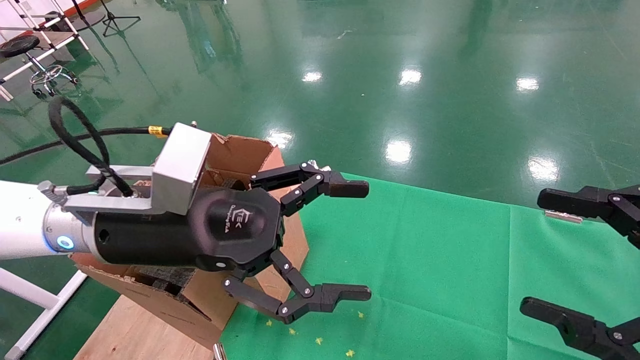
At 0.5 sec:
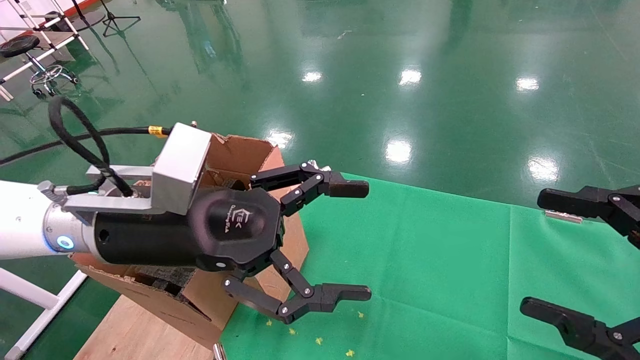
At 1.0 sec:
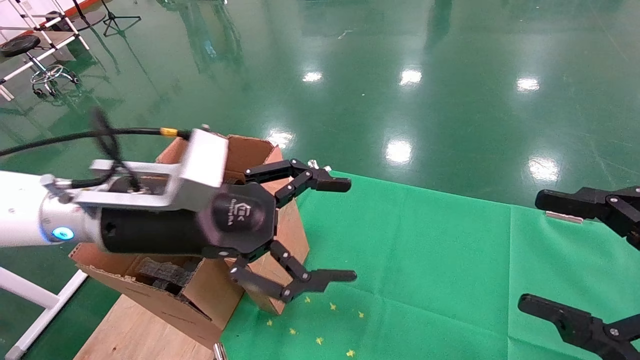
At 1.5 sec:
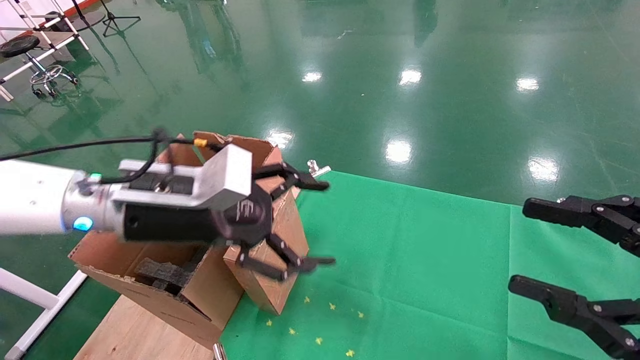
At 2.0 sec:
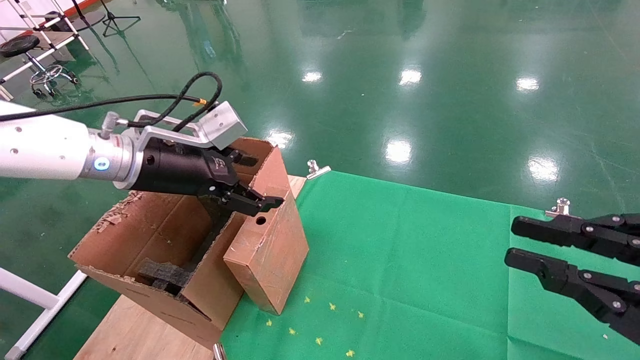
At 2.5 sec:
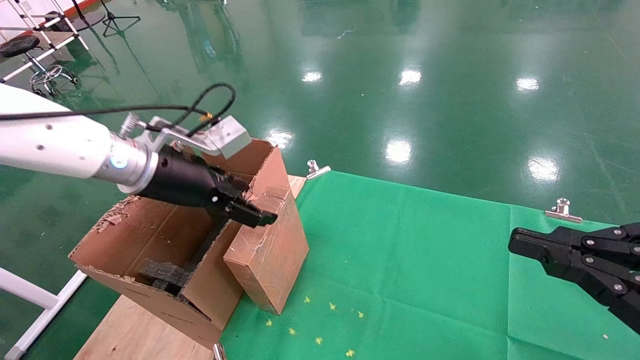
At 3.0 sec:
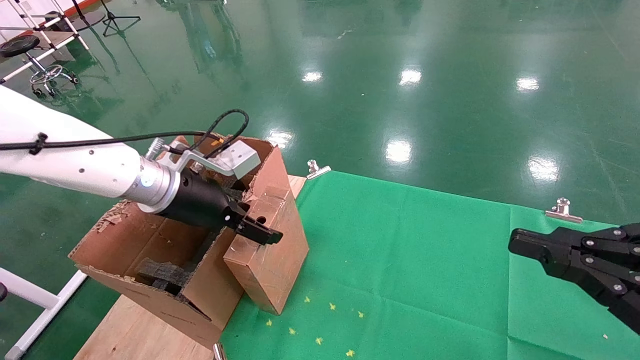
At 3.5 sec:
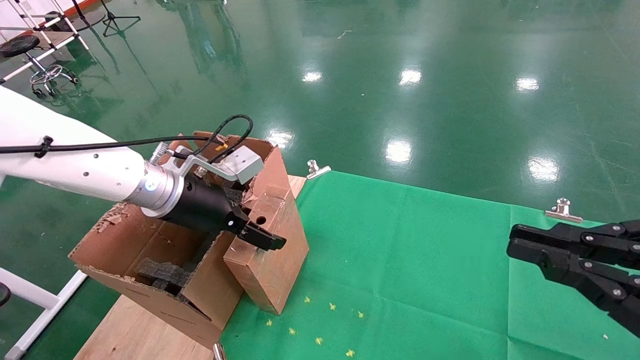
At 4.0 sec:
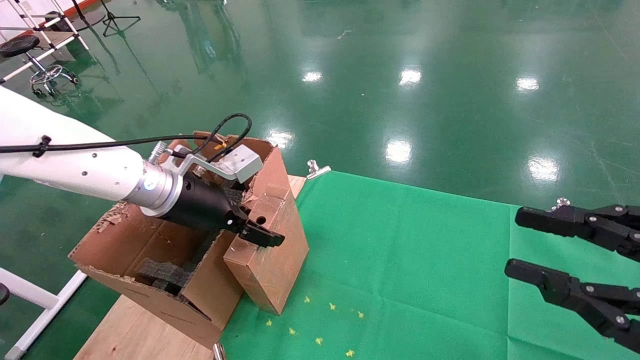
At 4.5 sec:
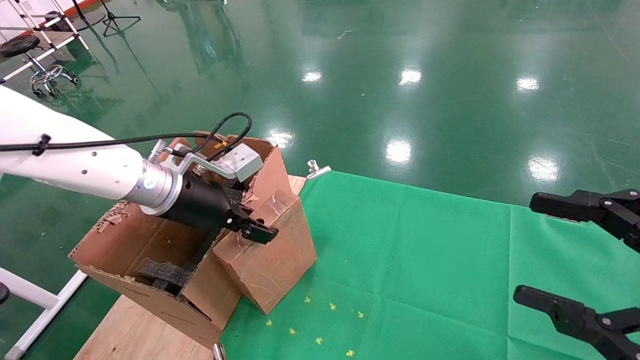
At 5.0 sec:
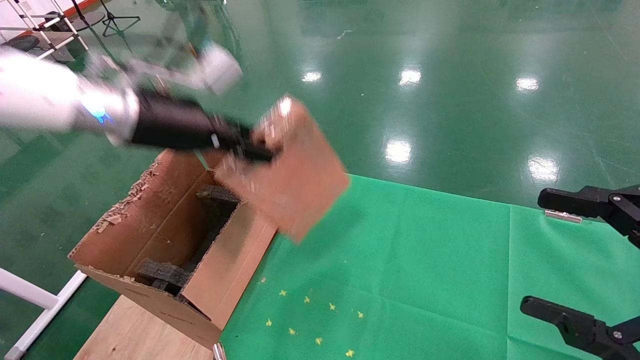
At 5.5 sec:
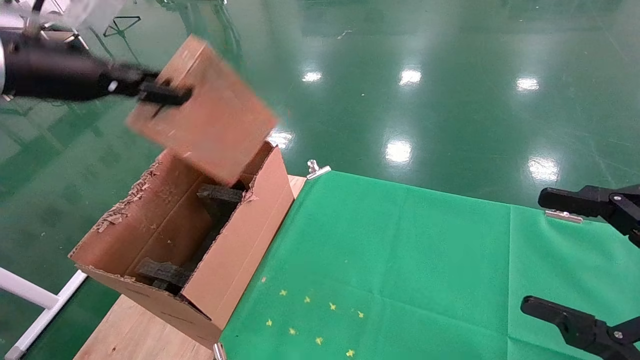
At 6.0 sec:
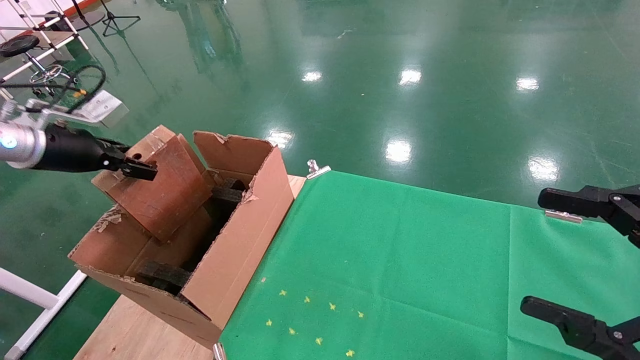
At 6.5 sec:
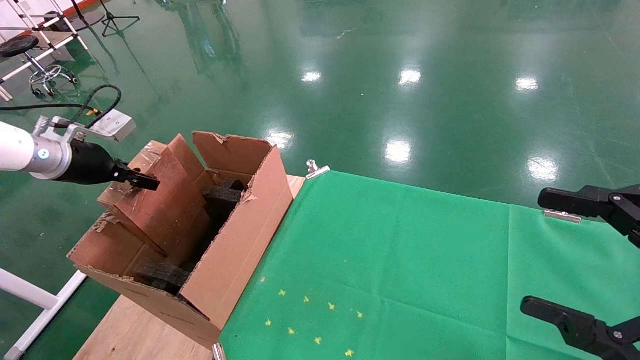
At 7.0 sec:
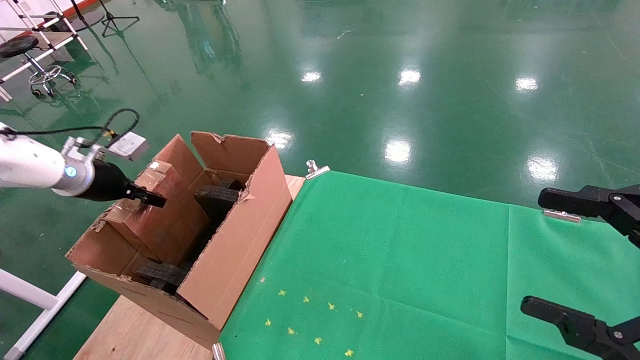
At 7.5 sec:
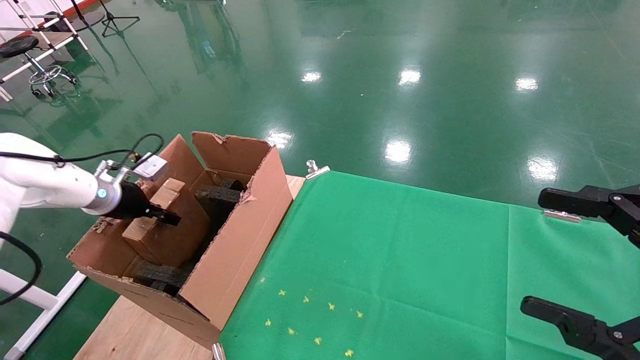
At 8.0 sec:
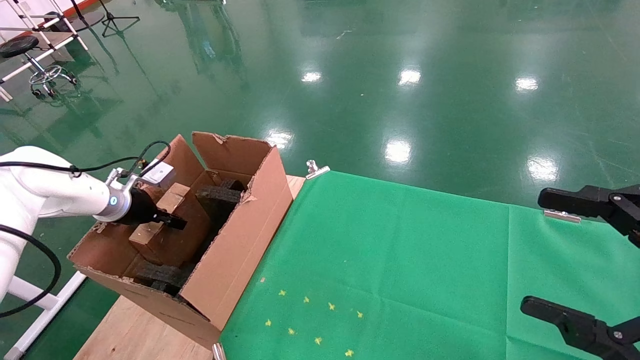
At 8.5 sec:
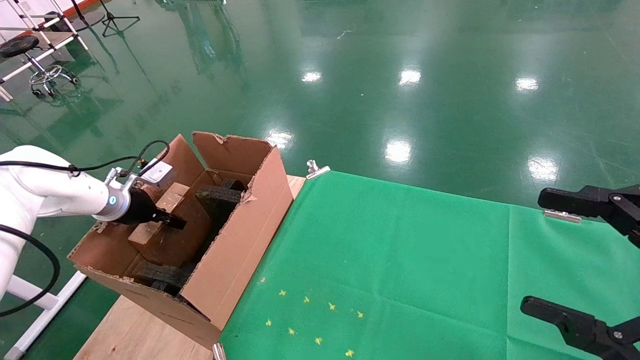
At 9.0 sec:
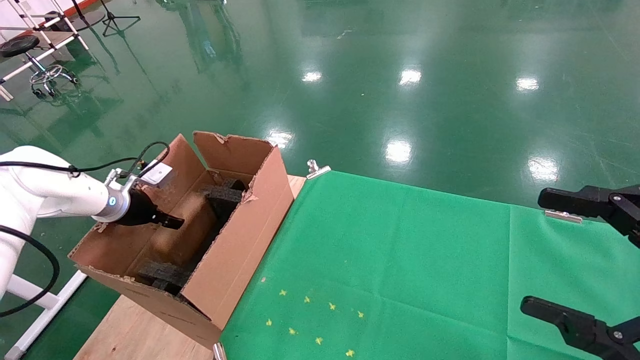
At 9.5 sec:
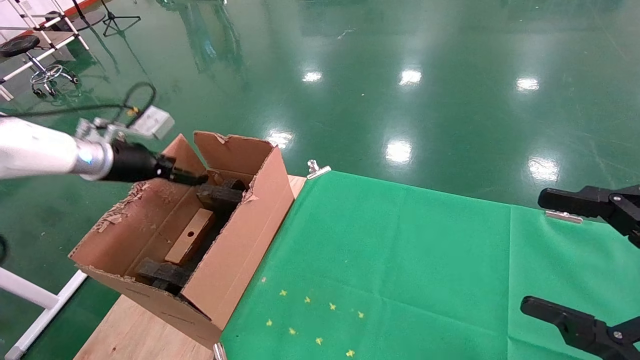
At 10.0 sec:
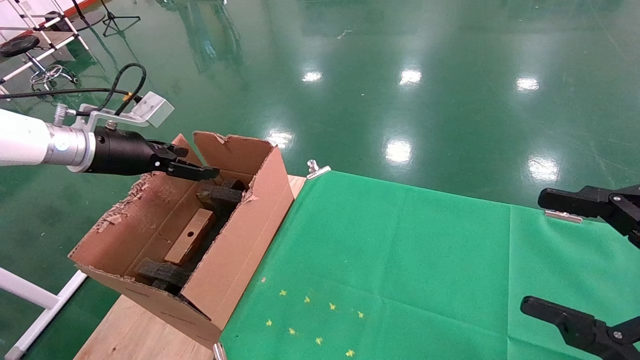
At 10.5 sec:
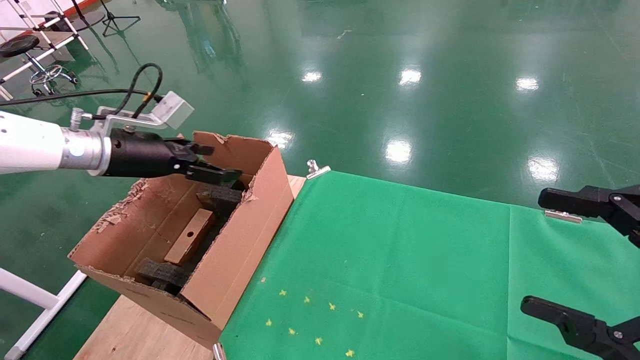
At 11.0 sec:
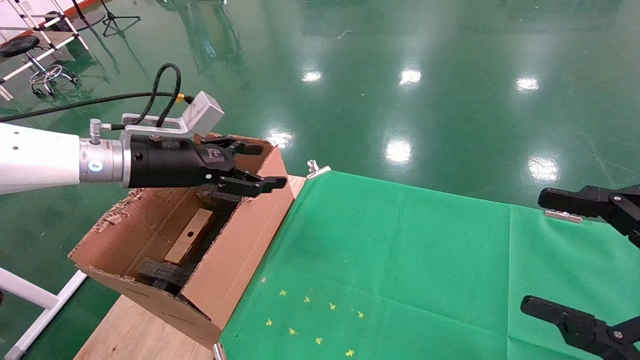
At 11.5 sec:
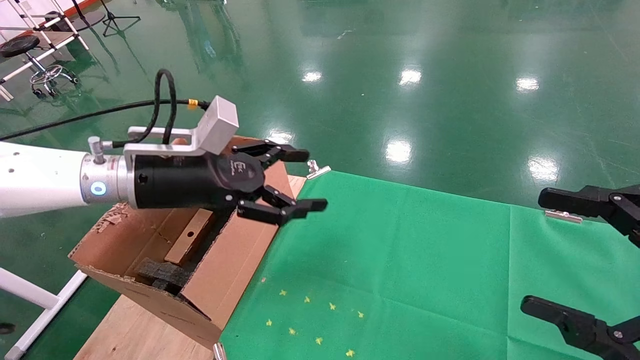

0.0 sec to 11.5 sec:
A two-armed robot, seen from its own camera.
Task of the whole recording: using a robotic arm to pick up a cardboard box and palace it the carton.
Step, 1.0 sec to 4.0 sec: Pick up the mouse and the power cord paper box.
Step, 4.5 sec to 9.5 sec: Place the mouse and the power cord paper box into the container.
0.0 sec to 2.0 sec: The left gripper is displaced forward and to the left by some 10 cm. The right gripper closes its fingers.
2.0 sec to 4.0 sec: The left gripper changes place by some 5 cm.
4.0 sec to 6.0 sec: The right gripper opens; the left gripper heads to the left, covering some 20 cm, and closes up.
6.0 sec to 7.5 sec: The left gripper shifts some 15 cm downward and forward.
7.5 sec to 9.5 sec: The left gripper is displaced upward by approximately 5 cm, and opens up.
9.5 sec to 11.5 sec: The left gripper shifts about 20 cm to the right and backward.

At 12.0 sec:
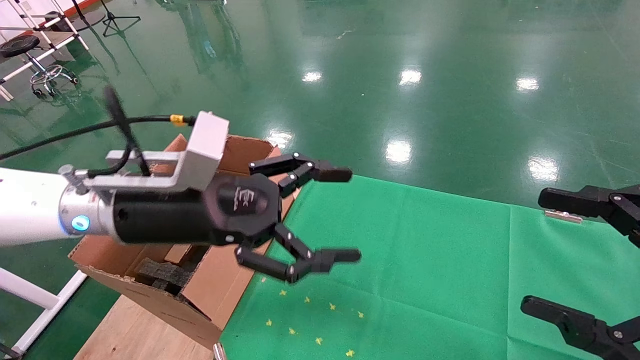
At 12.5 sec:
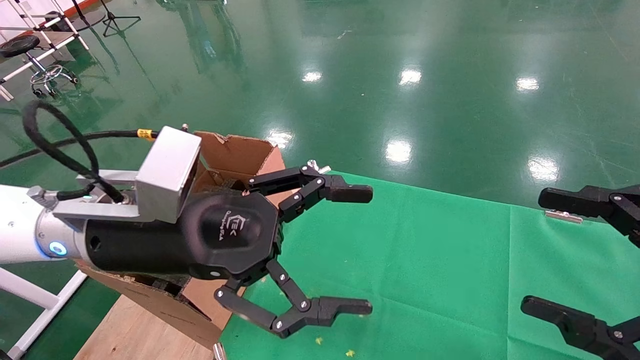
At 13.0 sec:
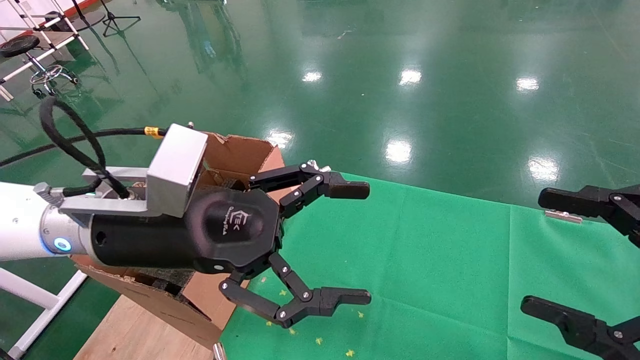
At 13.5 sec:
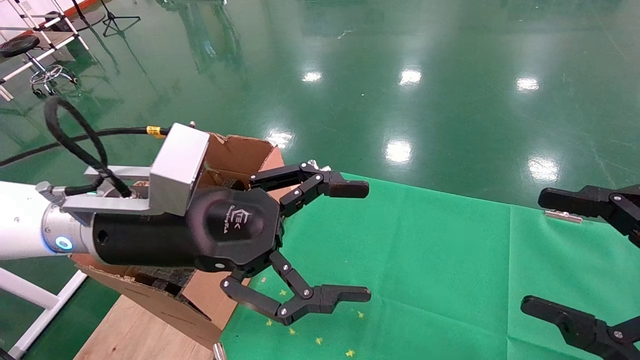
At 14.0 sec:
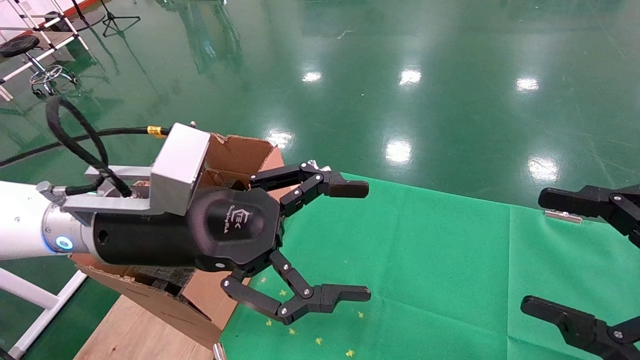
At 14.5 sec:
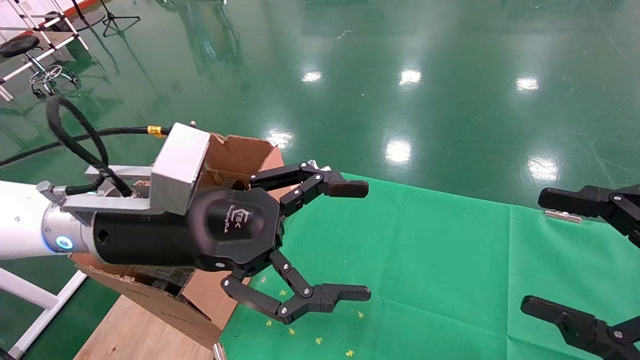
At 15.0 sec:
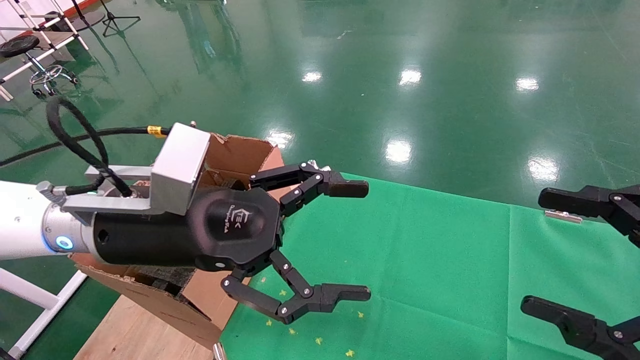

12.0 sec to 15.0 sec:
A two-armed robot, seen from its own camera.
Task of the whole recording: using a robotic arm to pick up a cardboard box and palace it the carton.
12.0 sec to 13.5 sec: The grippers move only a little.
13.5 sec to 15.0 sec: The two grippers keep their place.
